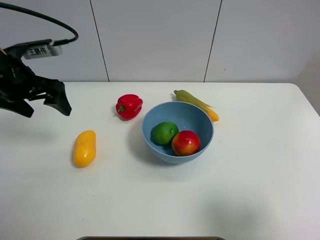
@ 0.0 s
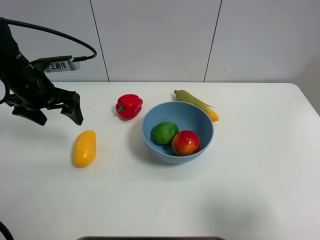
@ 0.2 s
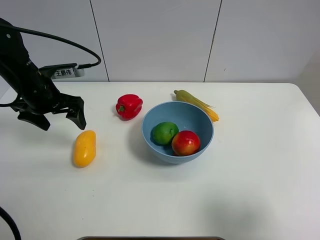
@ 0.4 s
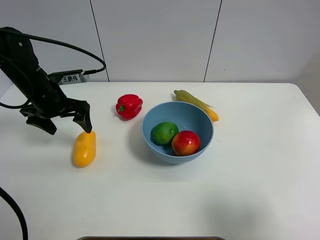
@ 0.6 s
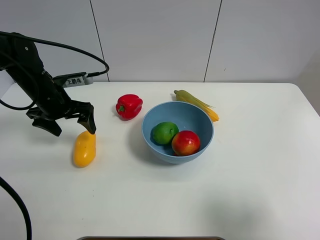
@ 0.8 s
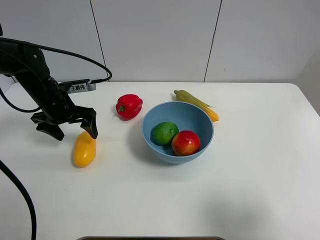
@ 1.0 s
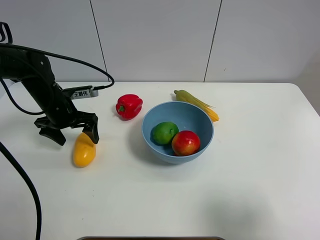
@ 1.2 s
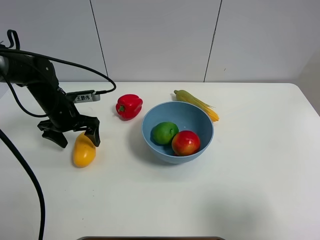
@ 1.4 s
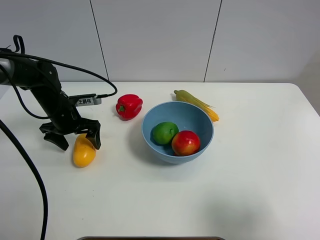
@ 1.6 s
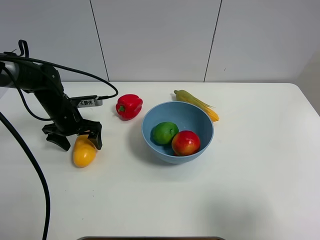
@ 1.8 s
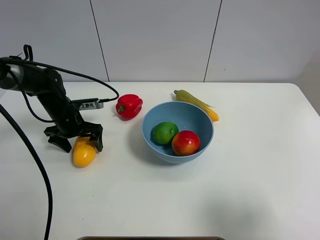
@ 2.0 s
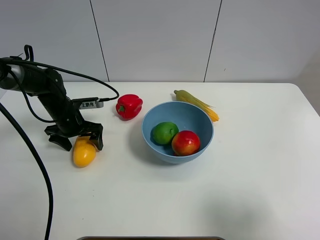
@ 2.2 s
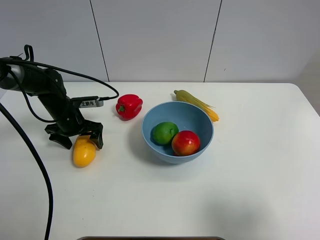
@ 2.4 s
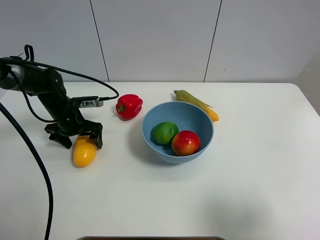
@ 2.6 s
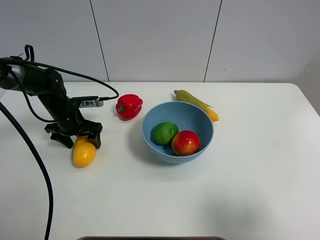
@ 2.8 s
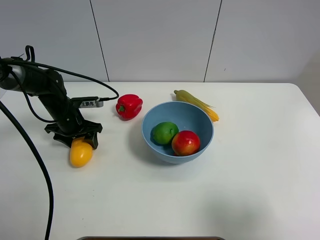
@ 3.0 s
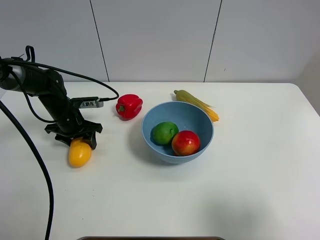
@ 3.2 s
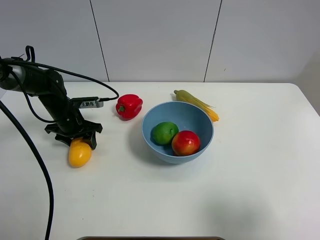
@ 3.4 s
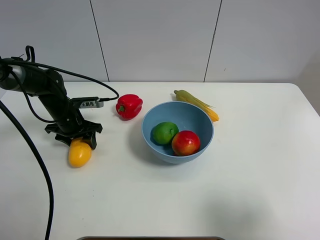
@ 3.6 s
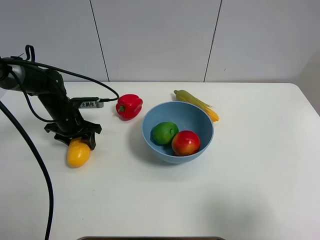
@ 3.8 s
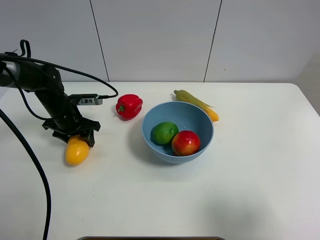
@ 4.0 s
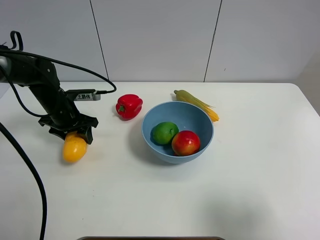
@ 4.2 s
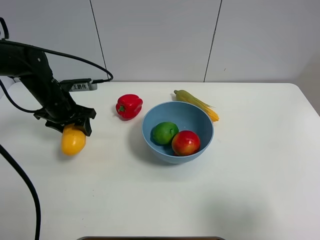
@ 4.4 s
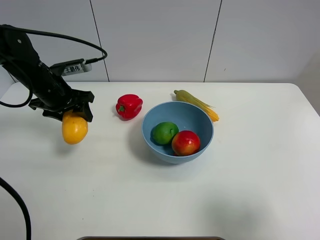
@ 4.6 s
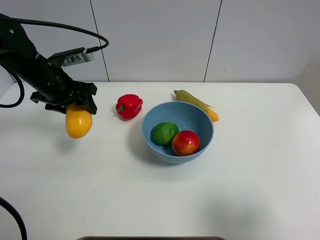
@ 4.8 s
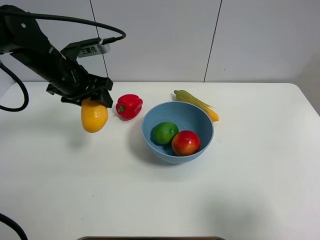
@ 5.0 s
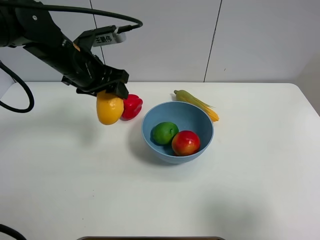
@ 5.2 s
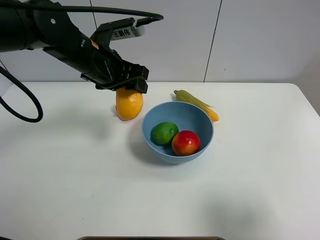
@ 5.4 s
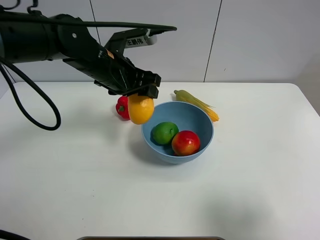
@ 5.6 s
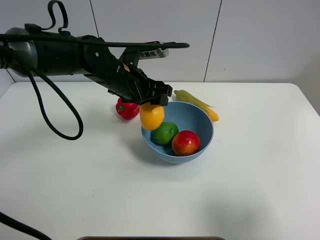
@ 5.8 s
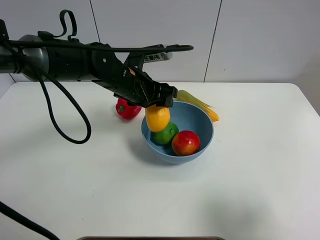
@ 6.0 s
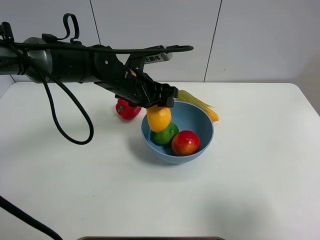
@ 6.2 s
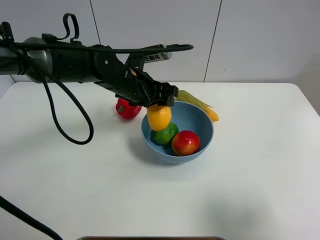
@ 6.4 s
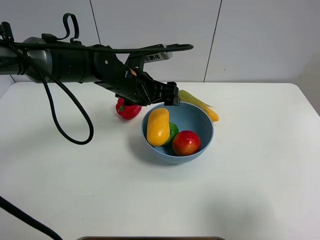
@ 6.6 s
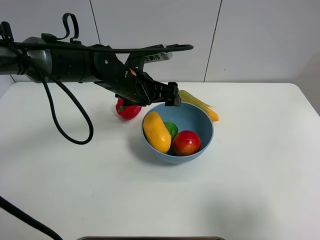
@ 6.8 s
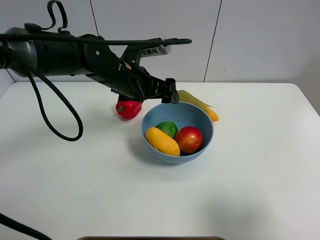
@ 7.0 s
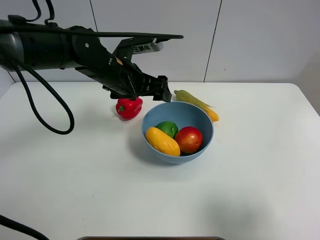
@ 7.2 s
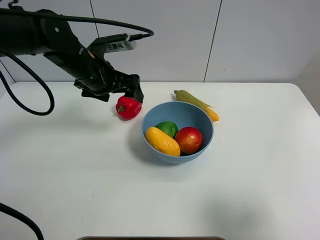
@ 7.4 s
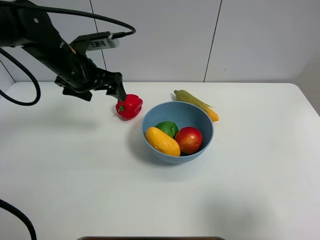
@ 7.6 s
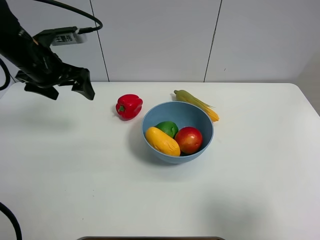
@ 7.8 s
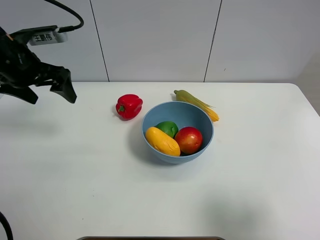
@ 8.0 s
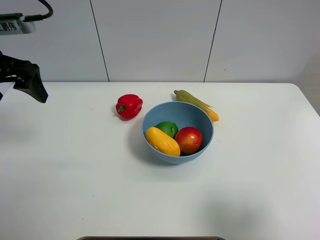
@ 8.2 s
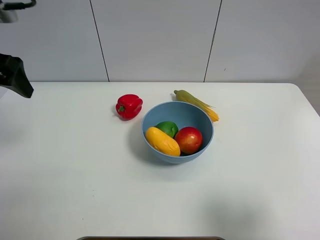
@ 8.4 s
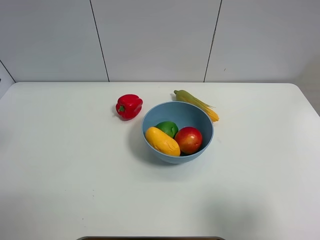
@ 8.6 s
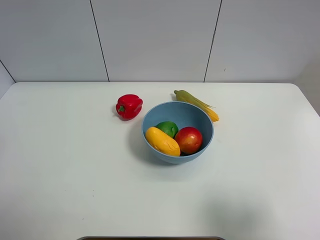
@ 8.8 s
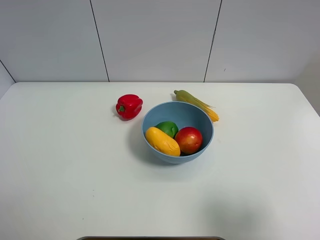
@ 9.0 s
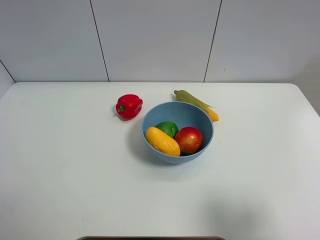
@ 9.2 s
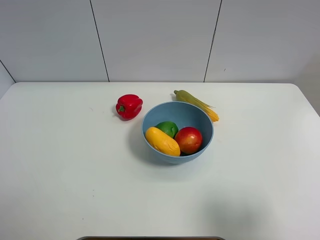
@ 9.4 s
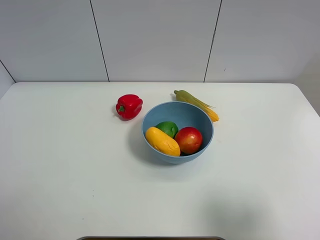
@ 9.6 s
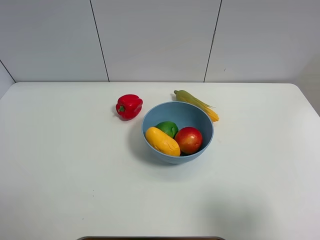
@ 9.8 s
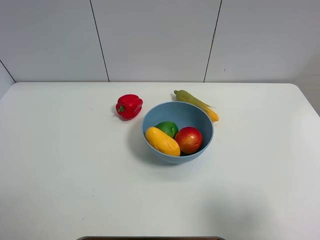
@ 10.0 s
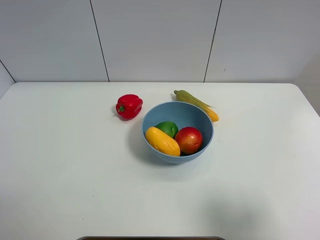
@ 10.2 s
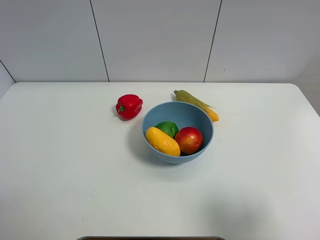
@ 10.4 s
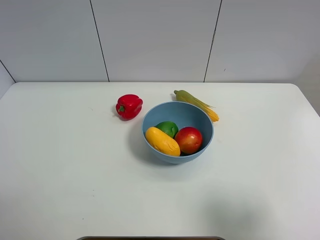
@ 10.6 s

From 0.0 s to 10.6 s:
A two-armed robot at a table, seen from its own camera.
Task of the whole recording: Put the three fruits on the table into a bowl.
Step, from 0.0 s to 3.2 s: Grasp the mango with left gripper.
Step, from 3.4 s to 6.6 s: Place the mango in the blue bowl with left gripper.
From 0.0 s to 1.6 s: The left gripper goes about 15 cm downward.
From 1.6 s to 3.0 s: The left gripper closes up.
From 3.0 s to 4.6 s: The left gripper moves upward, some 10 cm.
From 4.6 s to 6.0 s: The left gripper travels to the right by roughly 20 cm.
From 6.0 s to 7.6 s: The left gripper moves to the left, roughly 15 cm, and opens.
From 7.6 s to 9.0 s: The left gripper heads backward, to the left and upward, covering roughly 30 cm.
